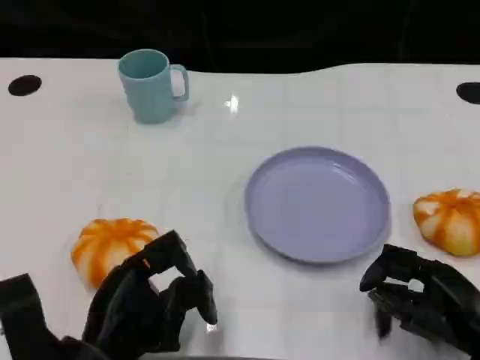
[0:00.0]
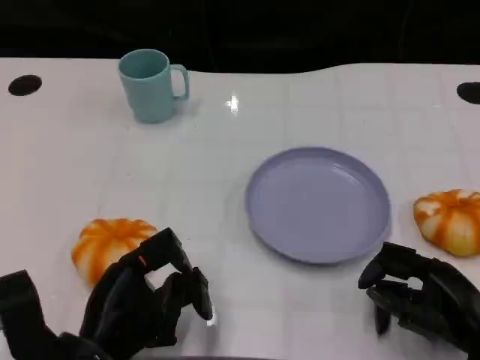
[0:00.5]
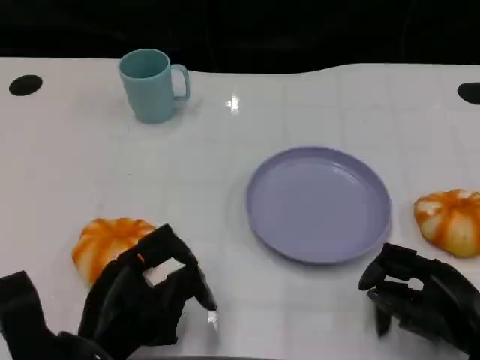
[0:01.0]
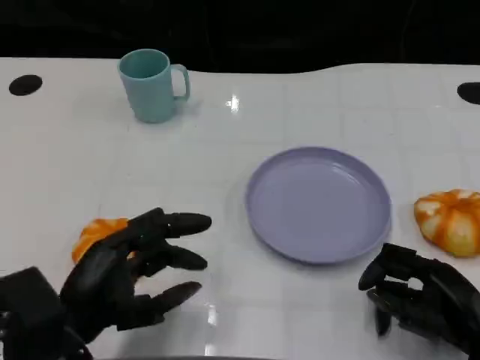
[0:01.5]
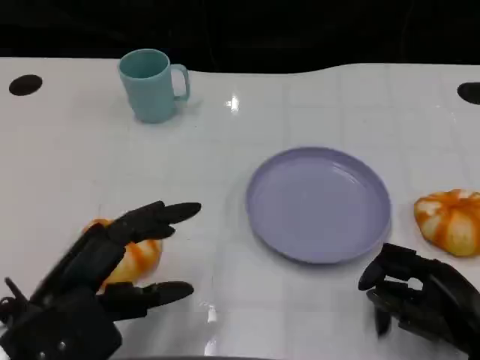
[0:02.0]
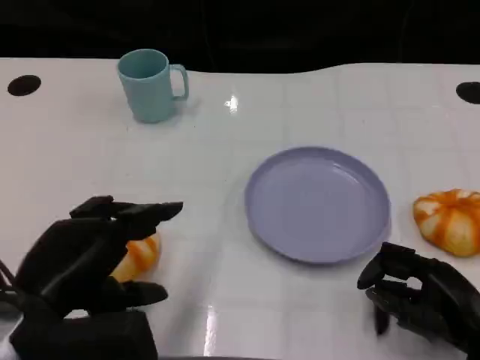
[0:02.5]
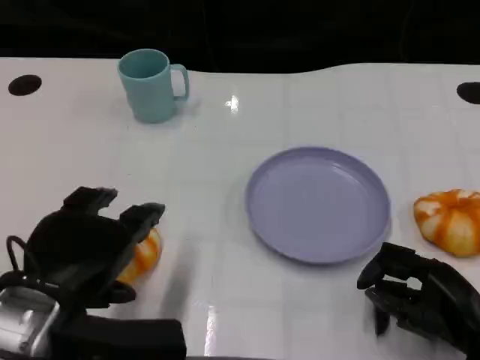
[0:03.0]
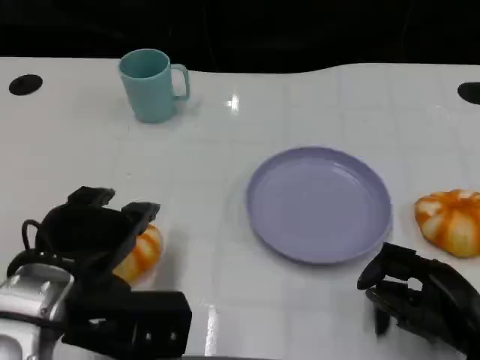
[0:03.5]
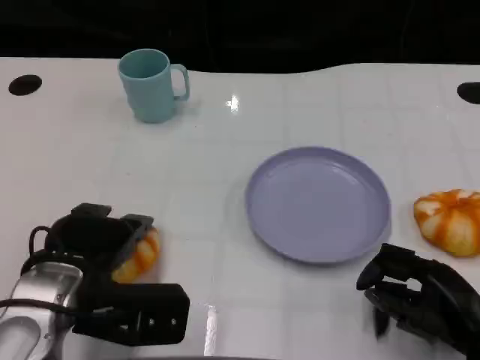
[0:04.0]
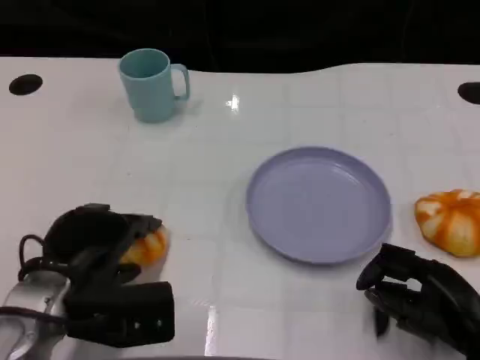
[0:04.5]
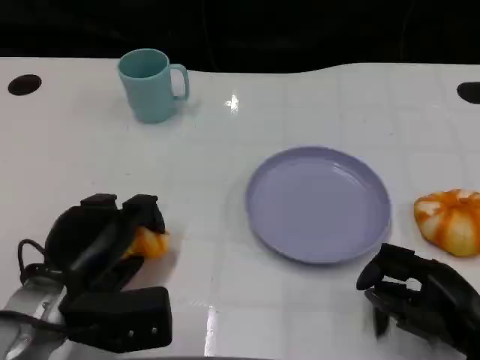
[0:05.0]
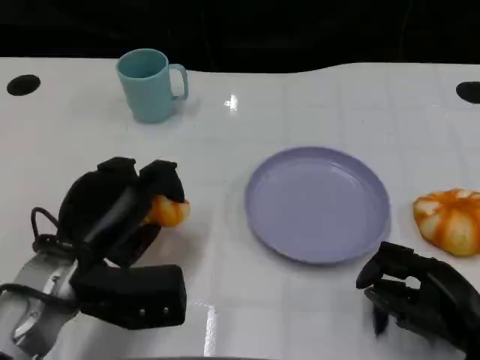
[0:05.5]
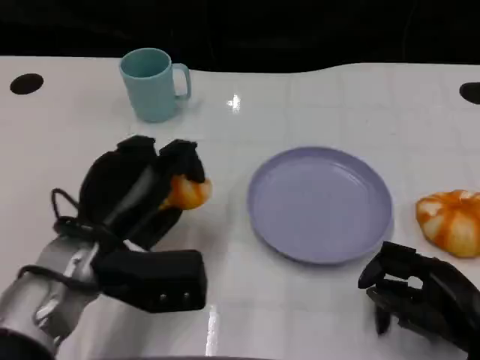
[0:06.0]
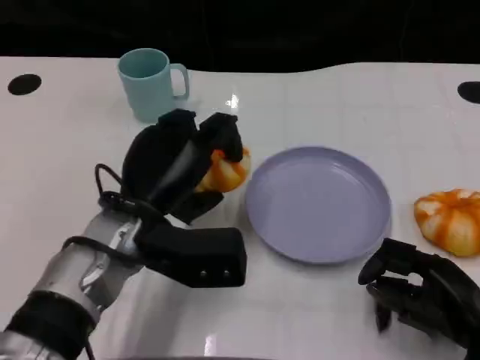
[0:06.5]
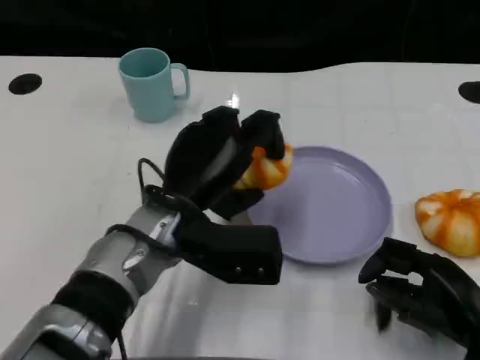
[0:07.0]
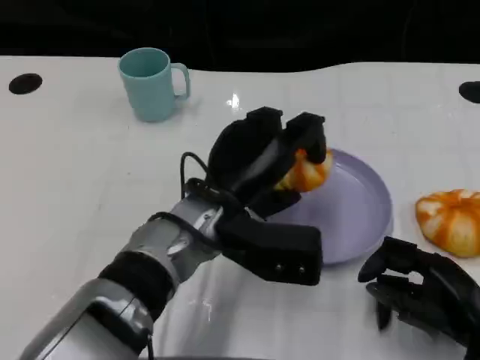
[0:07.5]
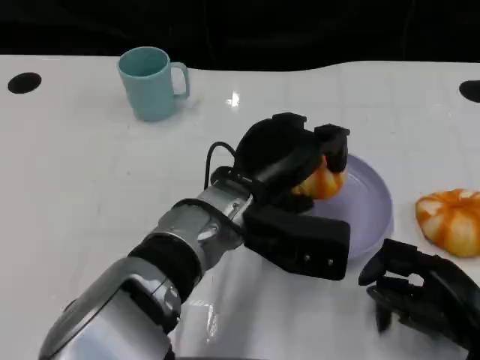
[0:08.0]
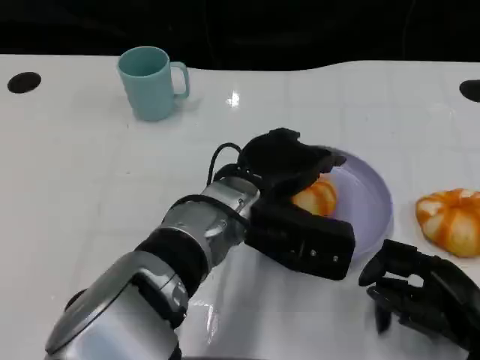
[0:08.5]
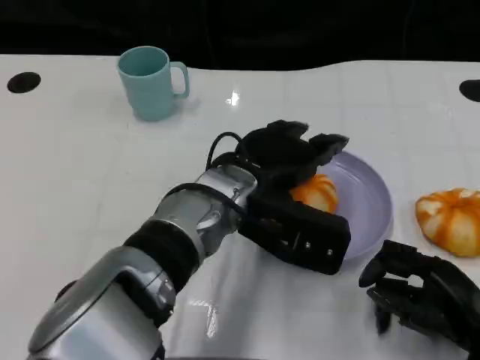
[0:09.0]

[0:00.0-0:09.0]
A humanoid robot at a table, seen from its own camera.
Task of the whole recording: Grasp the bread from the table and place it into the plate.
0:00.0 to 0:02.0: The left hand goes some 5 cm upward.
0:02.0 to 0:04.5: The left hand is displaced forward and downward by some 10 cm.
0:04.5 to 0:07.0: The left hand travels to the right and forward by about 15 cm.
0:07.0 to 0:09.0: The left hand moves to the right, approximately 5 cm.

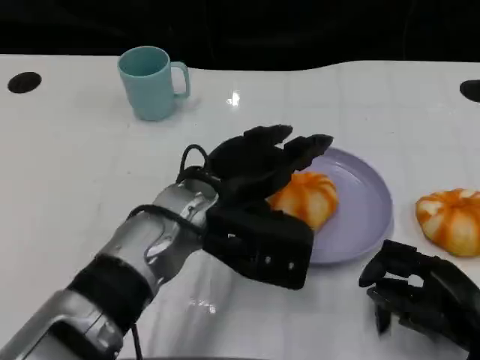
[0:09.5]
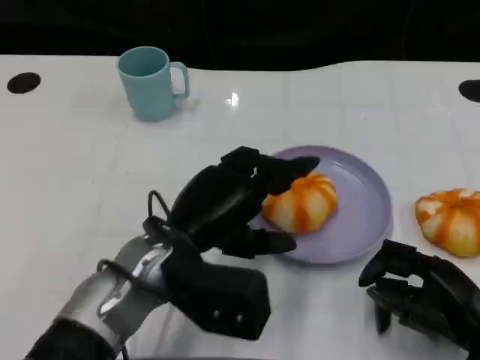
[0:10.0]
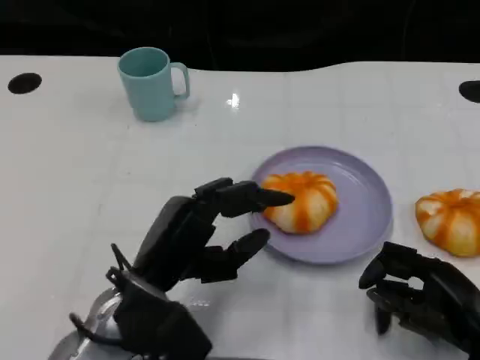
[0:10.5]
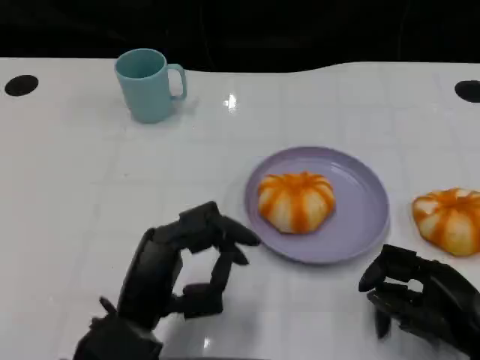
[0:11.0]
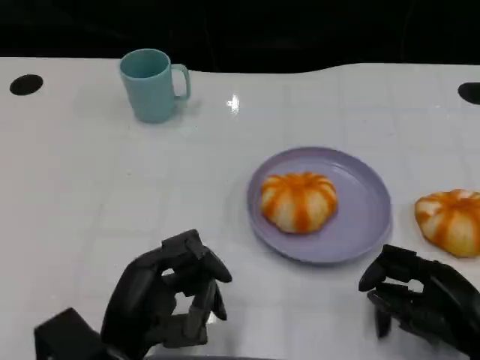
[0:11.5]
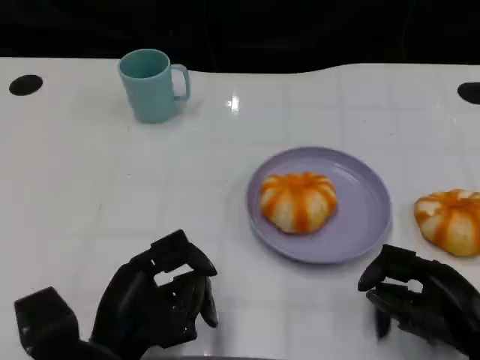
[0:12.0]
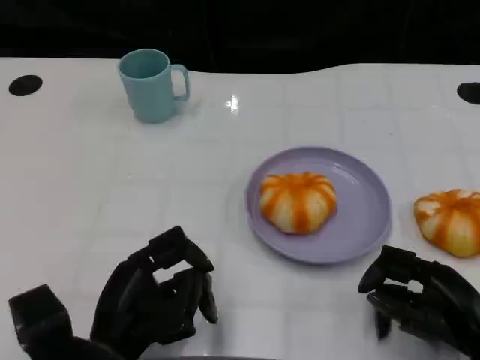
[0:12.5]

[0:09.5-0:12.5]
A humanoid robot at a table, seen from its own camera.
Task of the whole recording: Grasp the bread from the table and place it into the plate.
0:09.5 to 0:11.0: The left hand goes roughly 15 cm backward, downward and to the left.

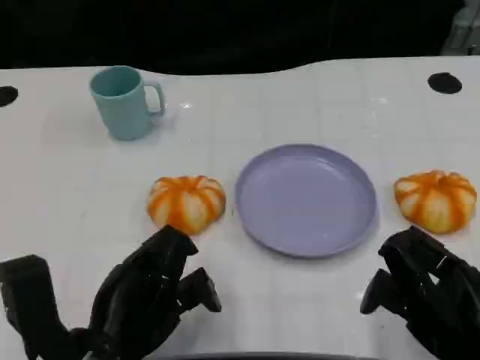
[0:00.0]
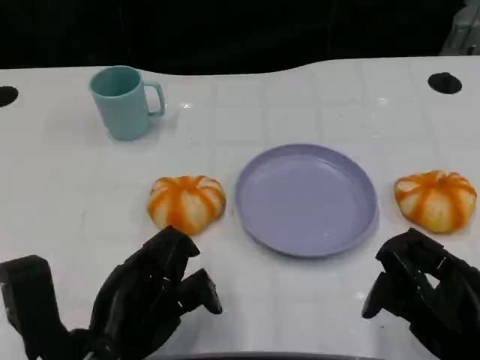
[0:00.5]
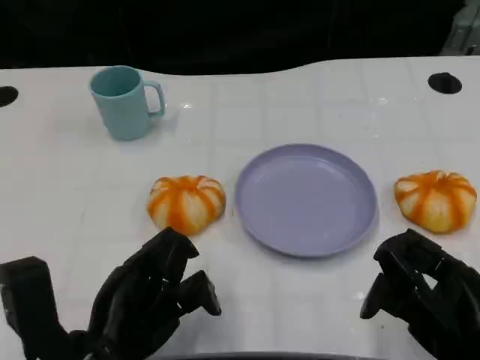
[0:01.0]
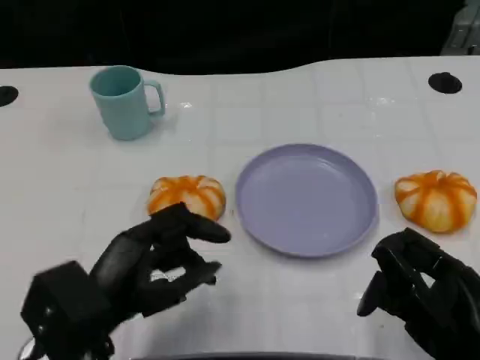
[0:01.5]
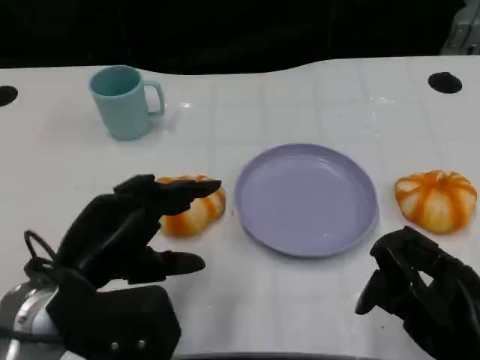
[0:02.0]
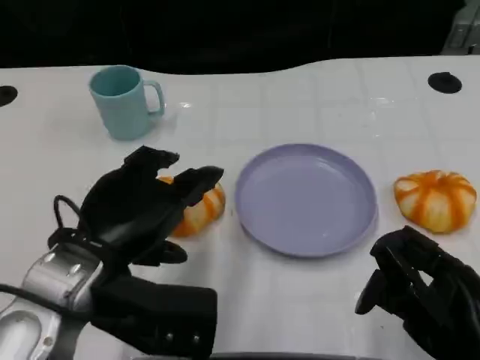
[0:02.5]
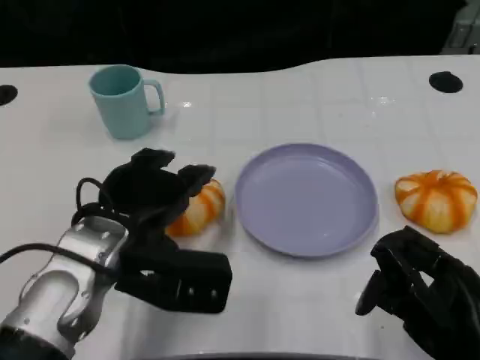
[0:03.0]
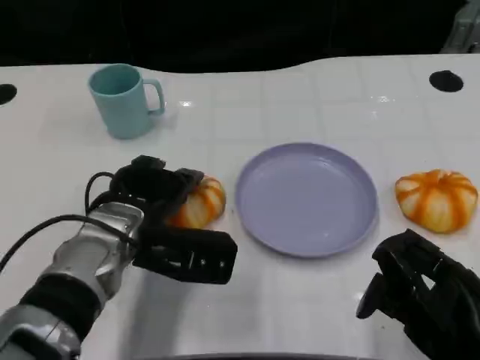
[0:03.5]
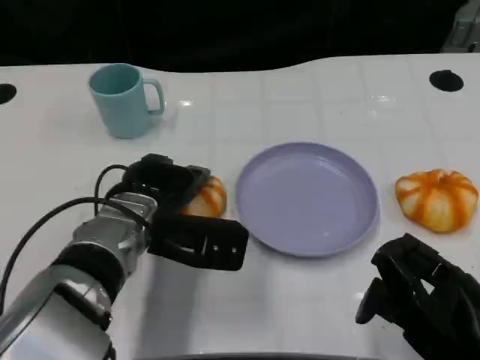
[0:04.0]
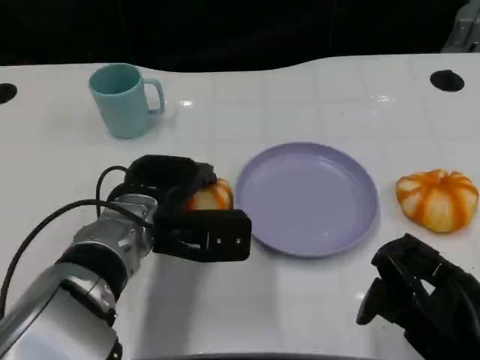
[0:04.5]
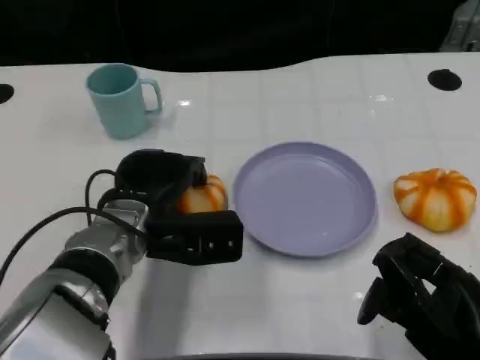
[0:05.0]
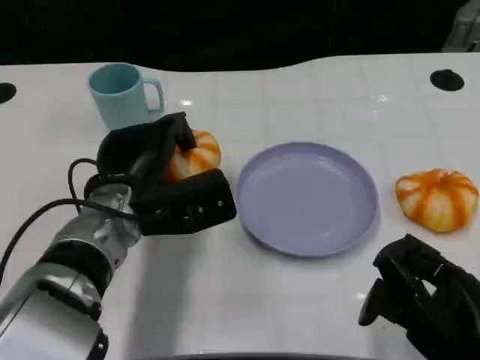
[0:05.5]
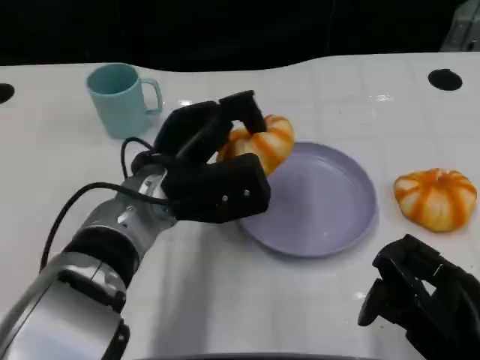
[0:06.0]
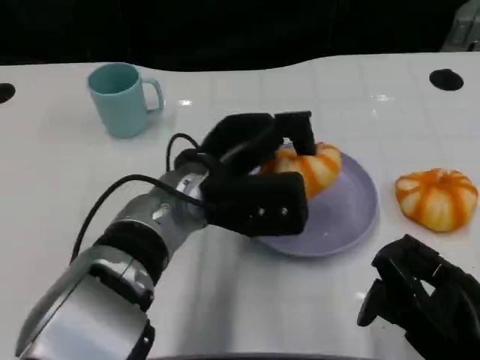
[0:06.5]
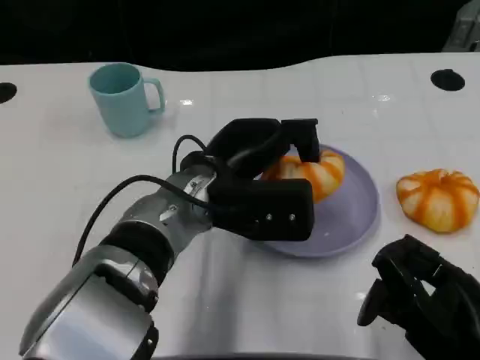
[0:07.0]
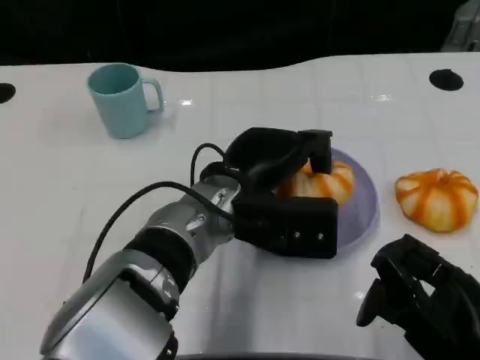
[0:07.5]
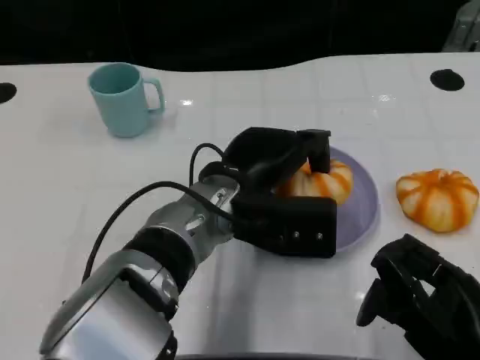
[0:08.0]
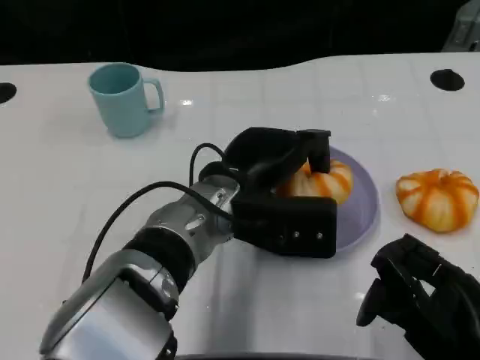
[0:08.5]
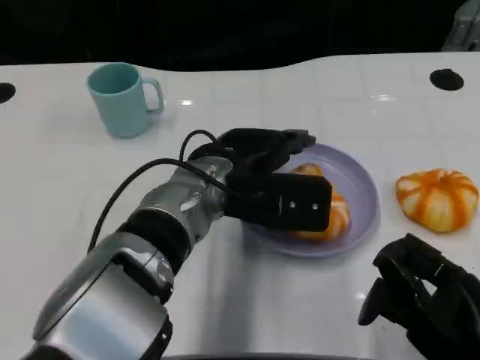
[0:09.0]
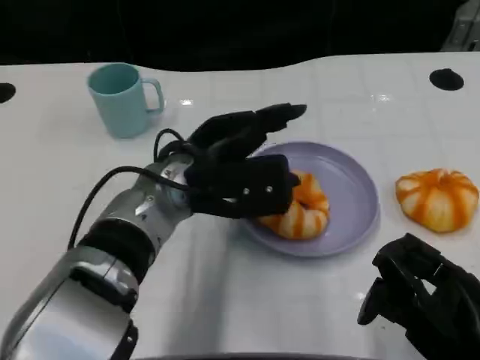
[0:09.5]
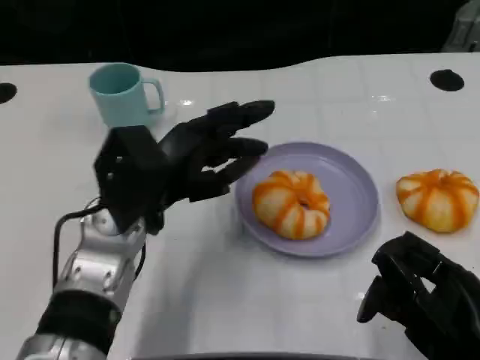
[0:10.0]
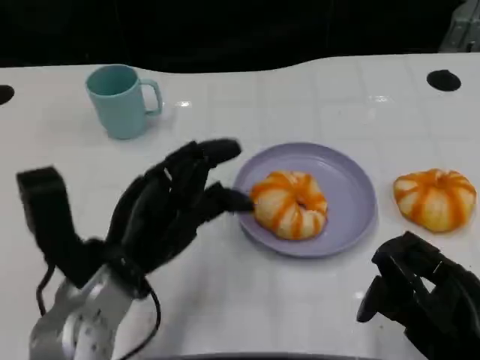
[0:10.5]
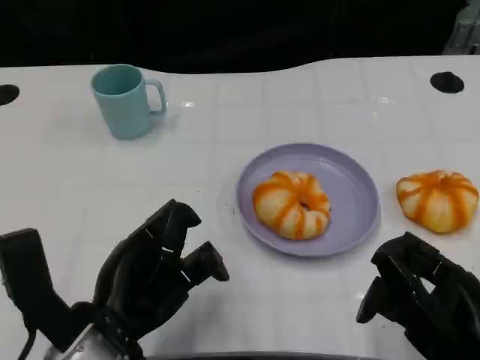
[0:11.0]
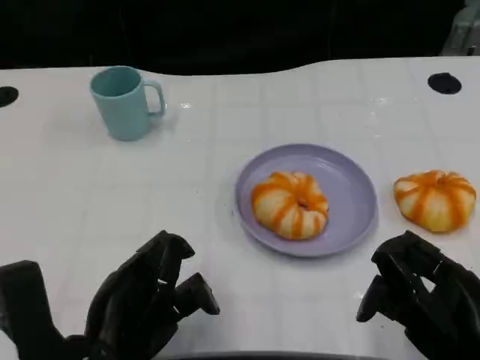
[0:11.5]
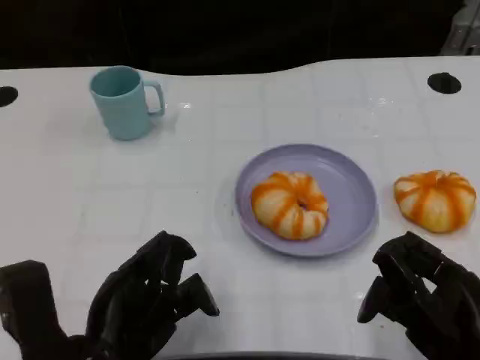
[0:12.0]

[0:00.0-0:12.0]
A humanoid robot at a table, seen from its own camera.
Task of the whole recording: Grasp the bread from the table and place it into the plate.
0:00.0 to 0:02.0: The left hand moves upward, about 5 cm.
0:02.0 to 0:04.0: The left hand is displaced forward and to the right by about 10 cm.
0:06.0 to 0:08.0: The left hand is displaced to the right by approximately 5 cm.
0:08.0 to 0:10.0: The left hand heads to the left, covering approximately 10 cm.
0:10.0 to 0:12.0: The left hand heads backward, covering some 15 cm.
